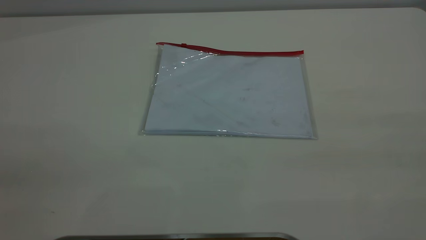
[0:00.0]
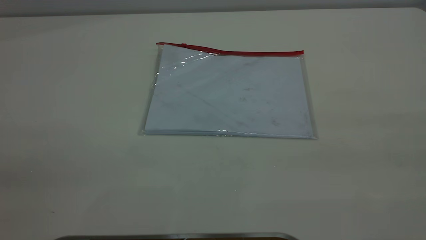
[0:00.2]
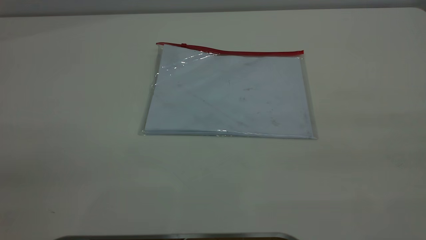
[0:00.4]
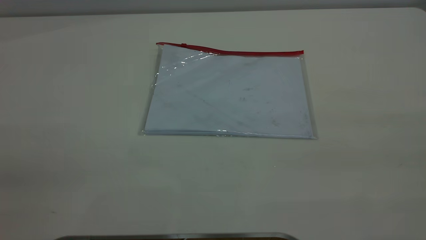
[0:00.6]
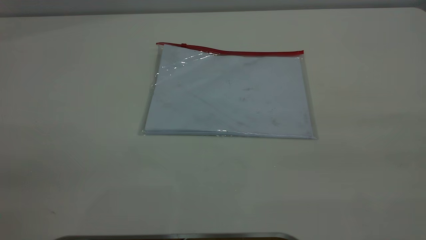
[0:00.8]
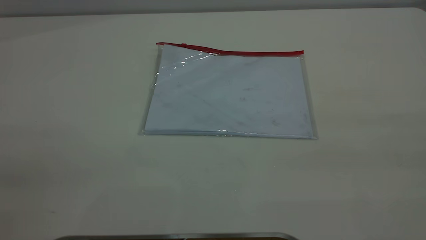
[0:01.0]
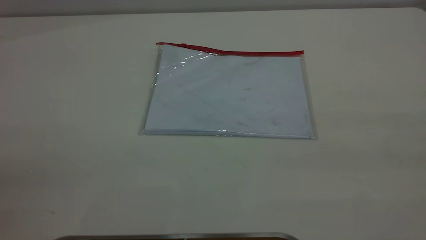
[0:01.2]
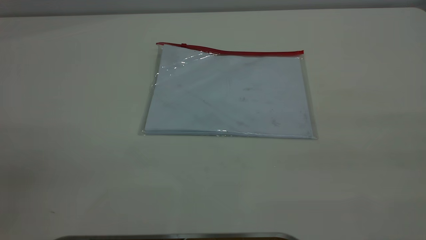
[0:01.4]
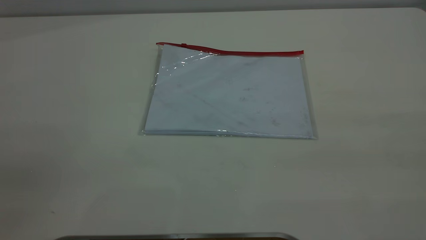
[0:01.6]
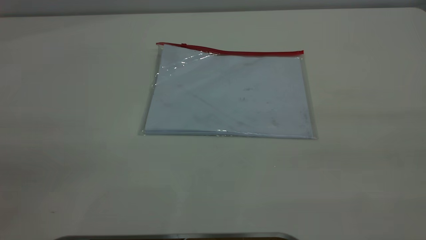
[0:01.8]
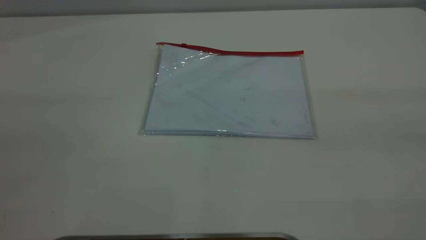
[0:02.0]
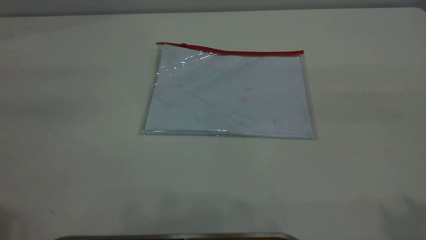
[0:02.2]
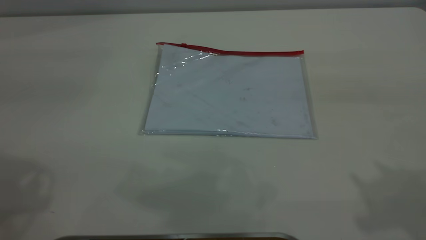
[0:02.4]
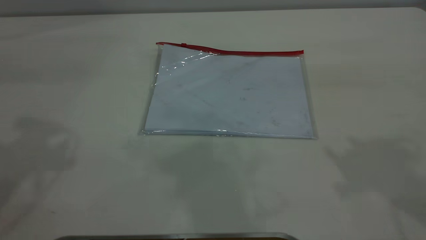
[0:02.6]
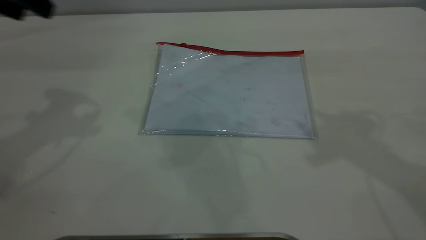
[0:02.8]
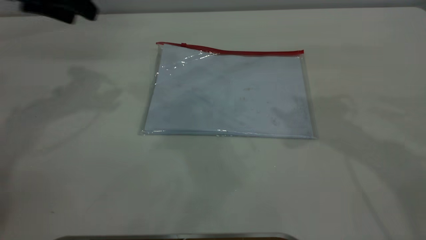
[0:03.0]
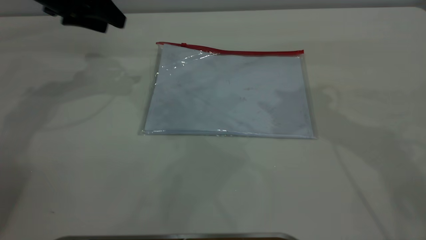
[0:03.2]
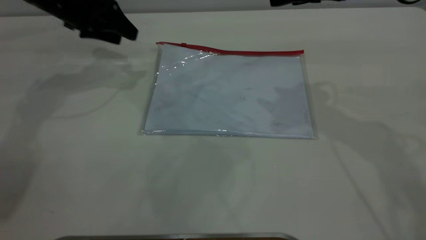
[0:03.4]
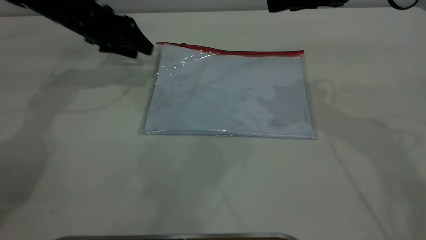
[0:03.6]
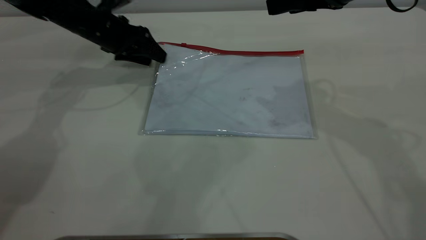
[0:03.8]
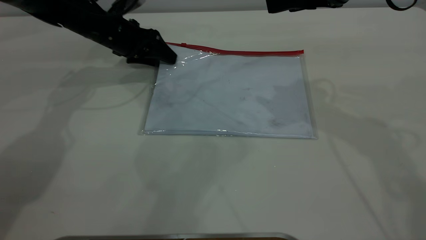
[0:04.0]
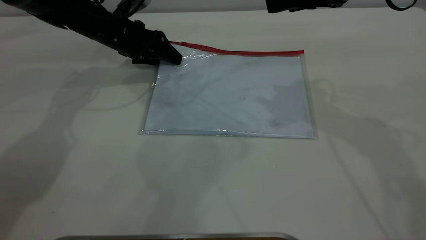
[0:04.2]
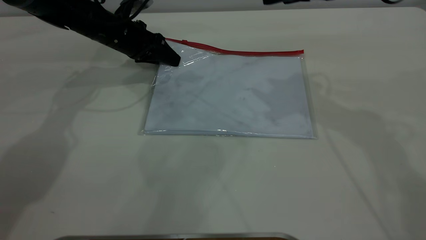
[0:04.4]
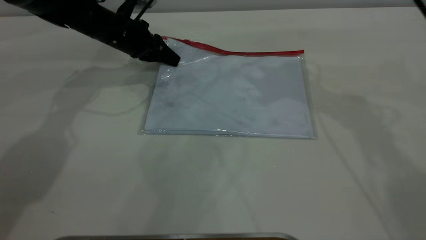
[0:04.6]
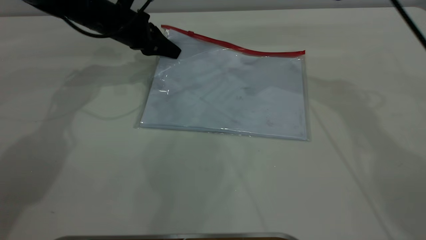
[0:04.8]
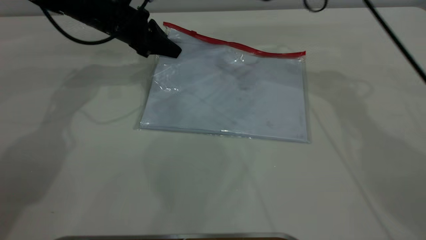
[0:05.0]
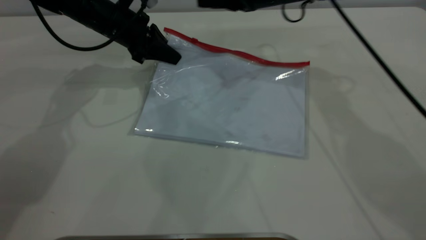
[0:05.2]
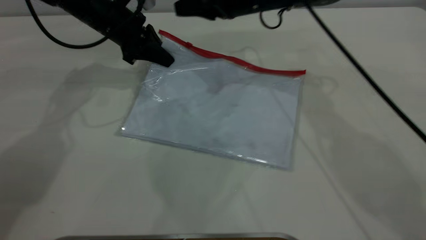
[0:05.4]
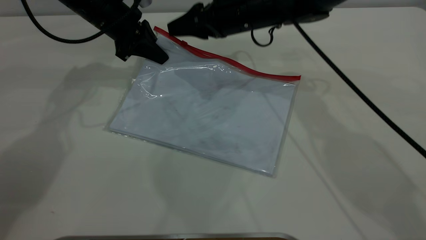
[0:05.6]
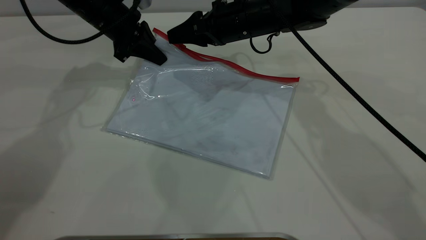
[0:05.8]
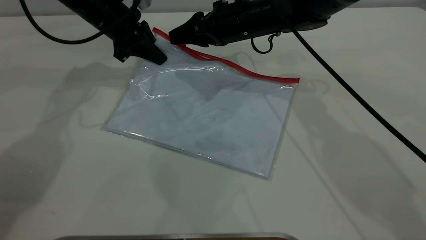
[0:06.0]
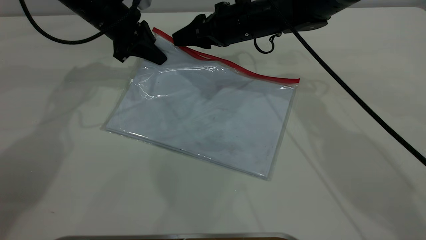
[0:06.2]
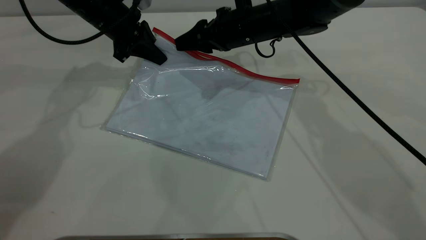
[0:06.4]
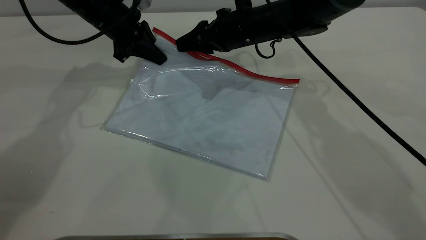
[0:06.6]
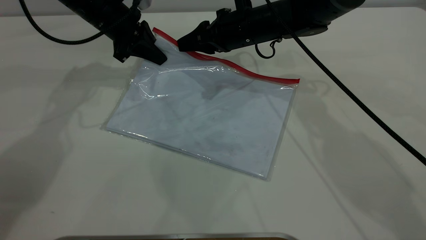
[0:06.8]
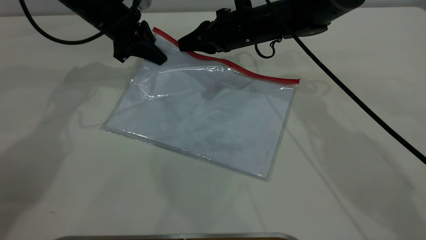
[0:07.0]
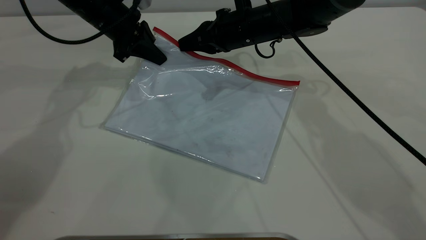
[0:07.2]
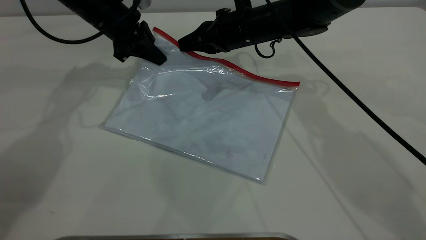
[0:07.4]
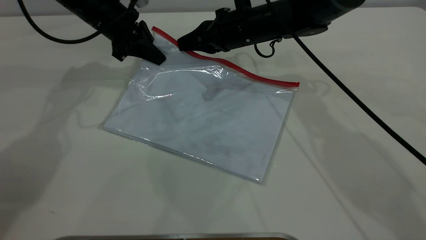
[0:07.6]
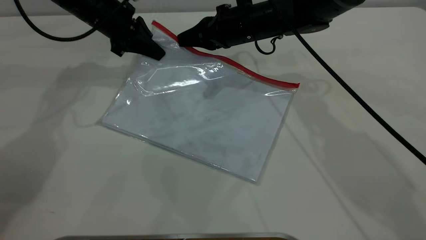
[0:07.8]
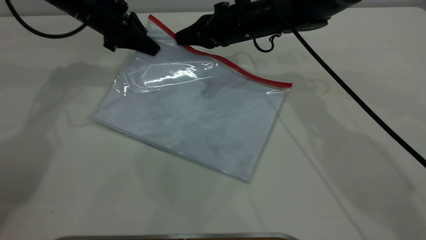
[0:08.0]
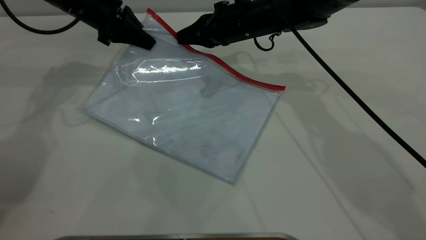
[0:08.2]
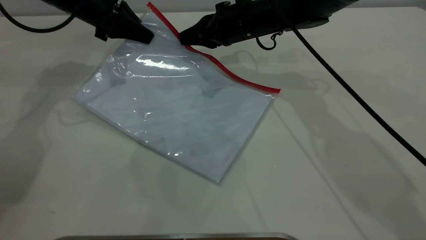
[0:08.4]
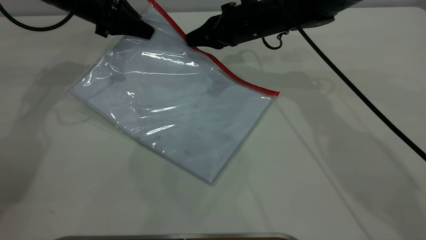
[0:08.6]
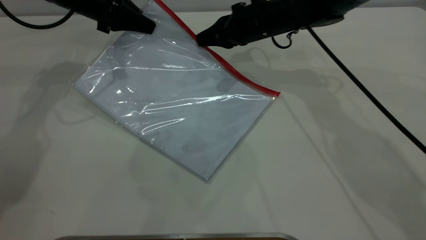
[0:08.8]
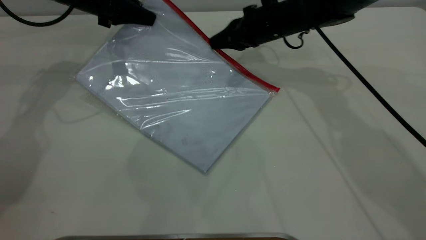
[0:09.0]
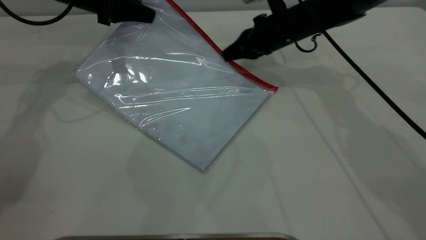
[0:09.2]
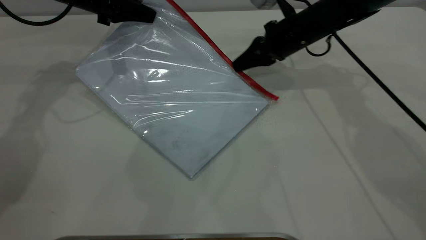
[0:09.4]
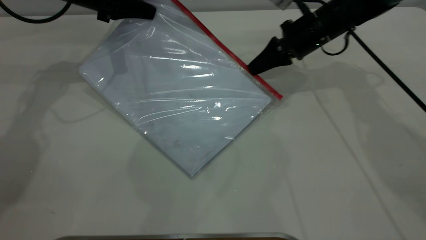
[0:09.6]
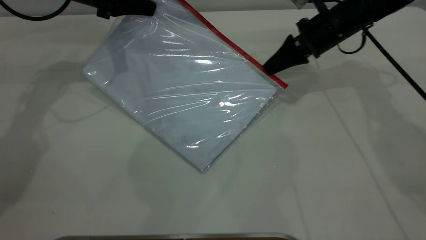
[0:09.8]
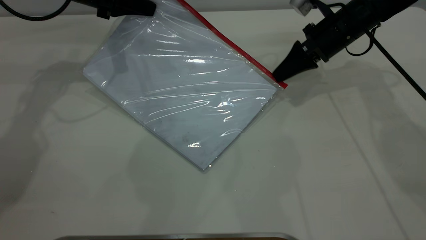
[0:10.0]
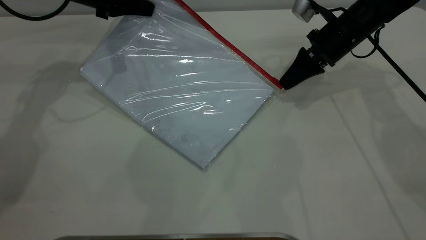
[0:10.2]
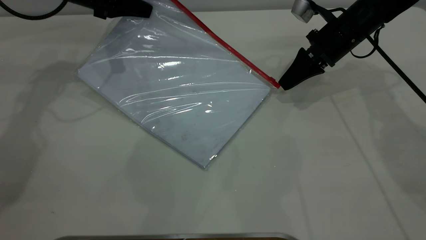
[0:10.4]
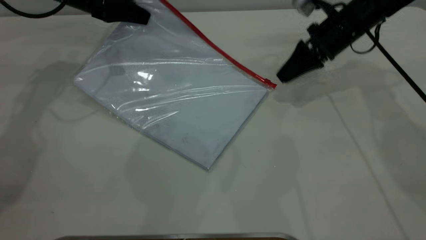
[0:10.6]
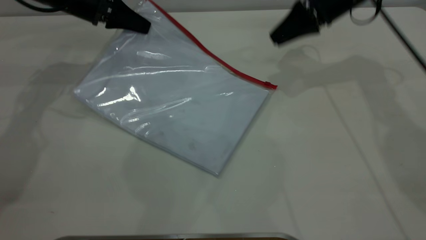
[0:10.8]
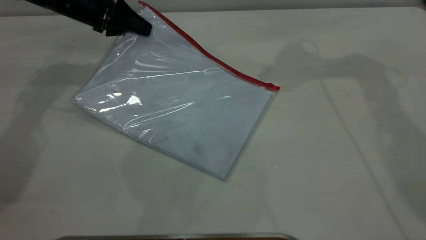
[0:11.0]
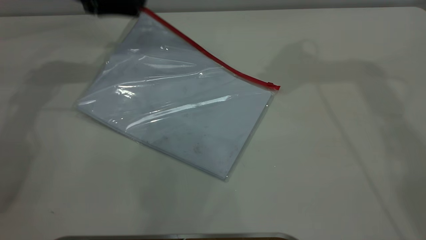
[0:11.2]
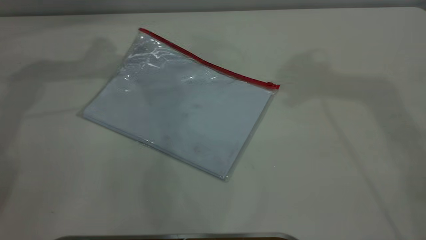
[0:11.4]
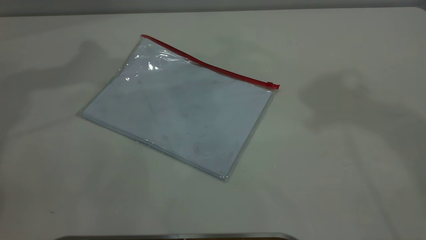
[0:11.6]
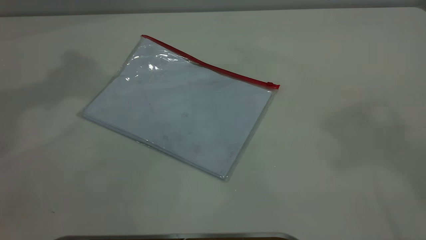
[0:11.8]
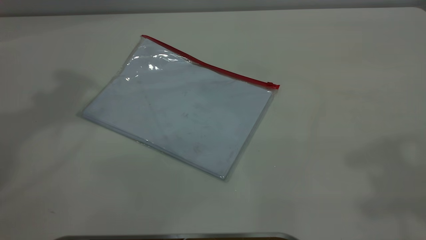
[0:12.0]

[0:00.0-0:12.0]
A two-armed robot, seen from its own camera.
Step, 0:00.0 to 0:05.2: Pick up the transparent plastic bag with the left gripper.
Step, 0:05.4 to 0:10.6: Pulling up the zipper on the transparent plastic bag with the right gripper to close it.
Step, 0:10.8 to 0:11.6: Place the transparent plastic bag.
0:00.0 to 0:01.6: Both grippers stay put.
0:01.6 to 0:03.0: The left gripper heads forward, covering about 40 cm.
0:03.0 to 0:04.4: The left gripper shifts approximately 20 cm downward, forward and to the right, and closes, while the right gripper goes some 5 cm forward.
0:04.4 to 0:06.0: The right gripper shifts about 20 cm downward, to the left and forward. Meanwhile the left gripper changes place by roughly 5 cm, and closes.
0:06.0 to 0:07.6: The right gripper closes its fingers.
0:07.6 to 0:09.0: The right gripper shifts roughly 5 cm to the right.
0:09.0 to 0:10.4: The right gripper goes some 10 cm to the right.
0:10.4 to 0:12.0: The grippers both shift upward and backward by some 40 cm. The left gripper opens its fingers.

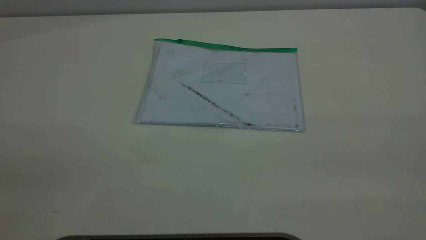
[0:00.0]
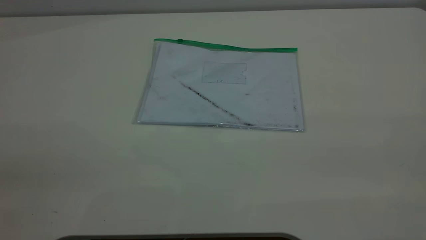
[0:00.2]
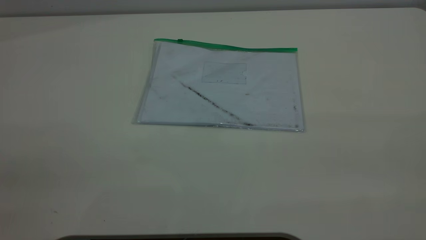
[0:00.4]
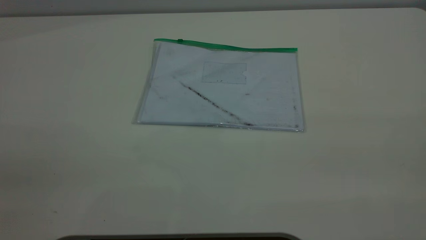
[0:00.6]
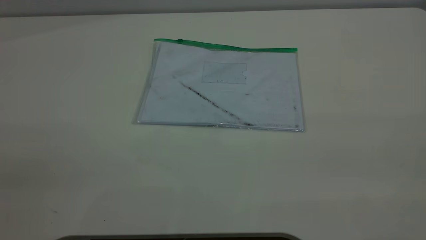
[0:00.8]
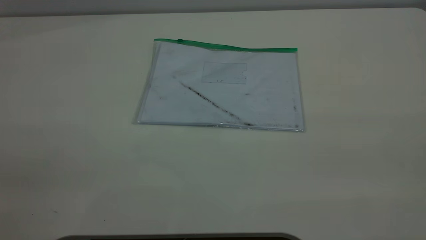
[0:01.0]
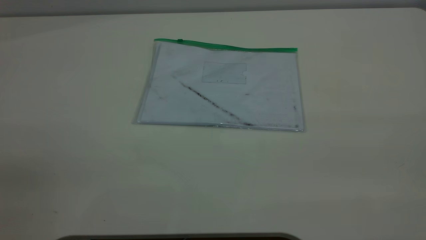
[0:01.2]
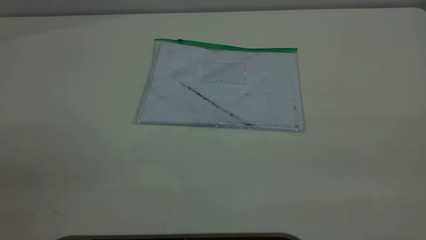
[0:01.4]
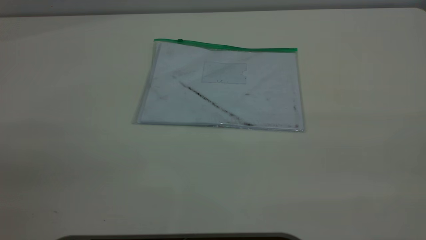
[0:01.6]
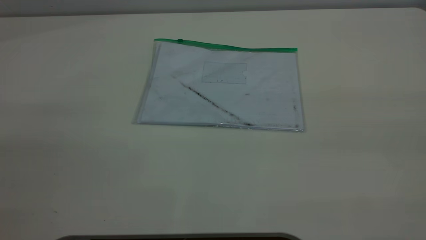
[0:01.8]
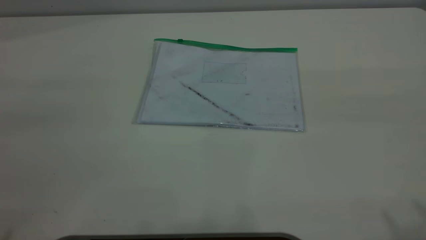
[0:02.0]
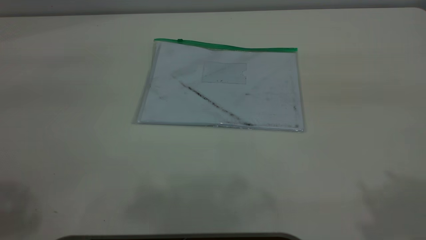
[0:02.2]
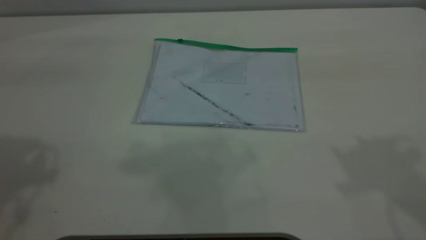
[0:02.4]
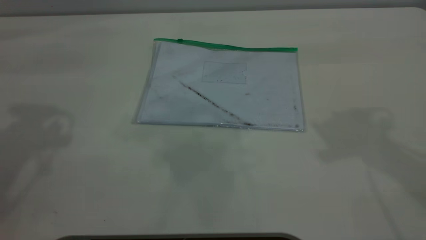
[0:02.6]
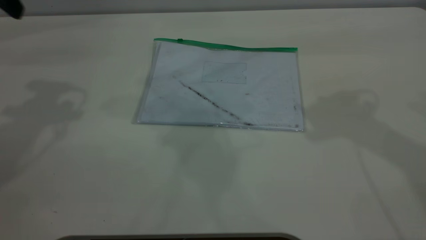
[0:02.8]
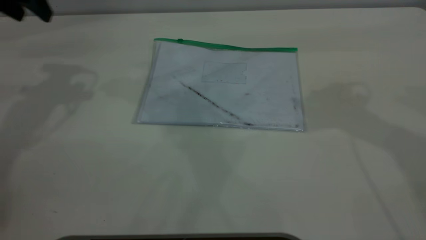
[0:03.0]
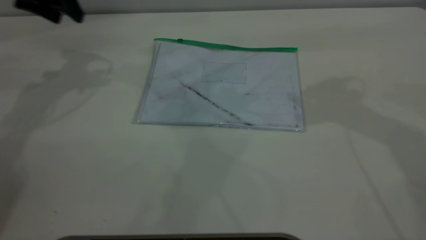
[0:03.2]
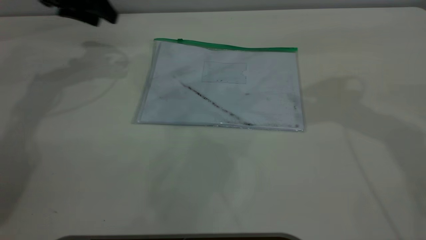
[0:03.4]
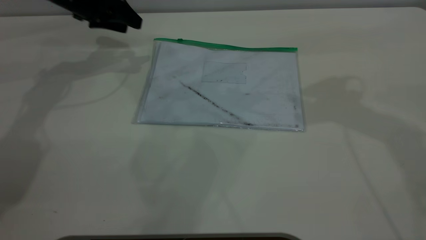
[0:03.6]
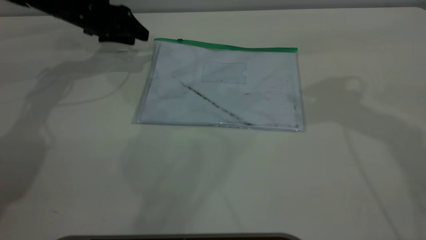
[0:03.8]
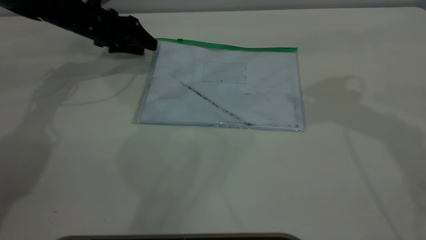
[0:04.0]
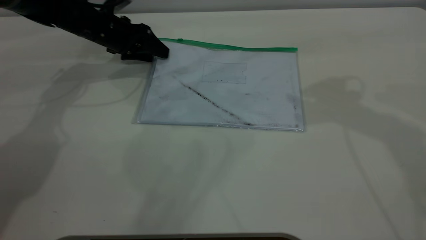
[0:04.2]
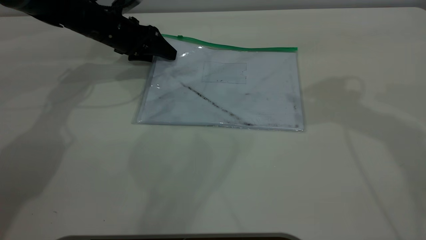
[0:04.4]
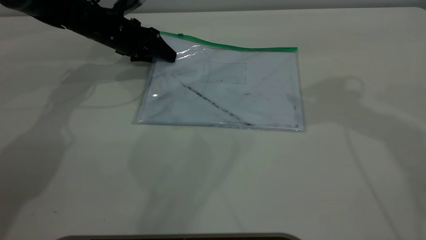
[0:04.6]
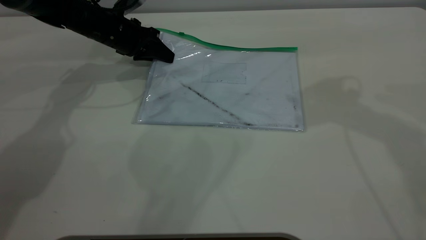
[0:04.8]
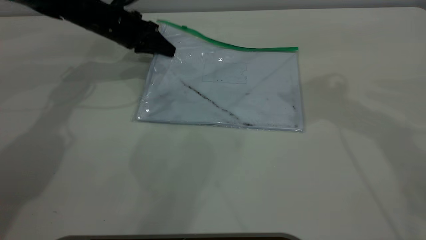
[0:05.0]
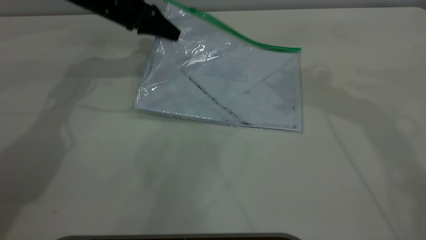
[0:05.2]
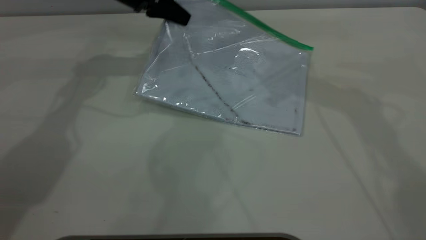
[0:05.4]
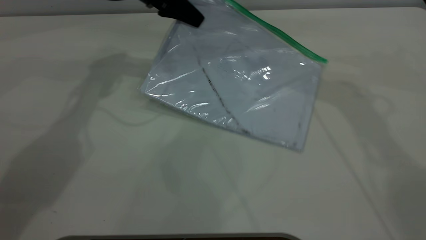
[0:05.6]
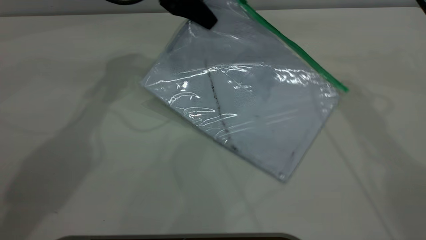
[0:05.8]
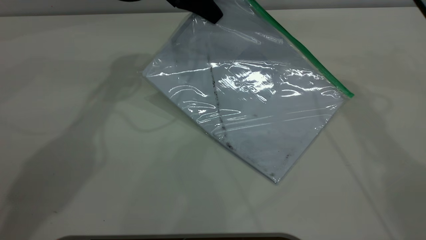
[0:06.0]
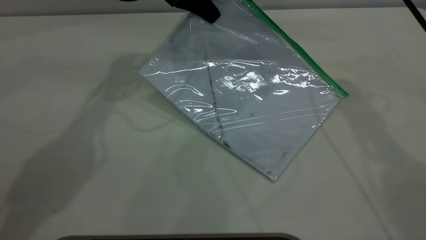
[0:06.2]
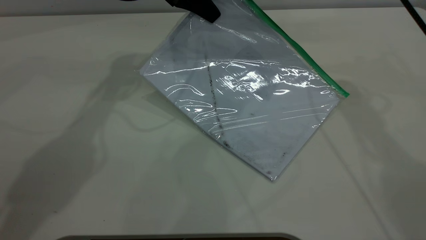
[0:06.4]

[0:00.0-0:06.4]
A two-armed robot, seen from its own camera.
Step, 0:00.0 to 0:05.0: Pick up the transparent plastic bag with the left gripper.
0:01.6 to 0:03.2: The left gripper is displaced forward by roughly 50 cm.
0:03.2 to 0:04.8: The left gripper shifts about 15 cm downward and to the right, and closes up.
0:04.8 to 0:06.4: The right gripper moves forward, to the left and downward, some 10 cm; the left gripper is displaced upward and to the right by about 15 cm.
